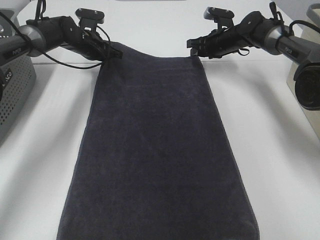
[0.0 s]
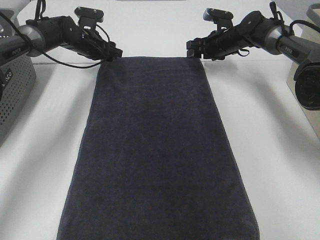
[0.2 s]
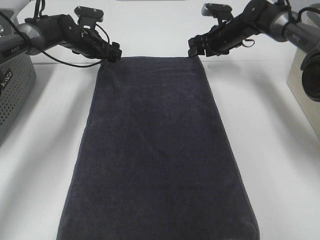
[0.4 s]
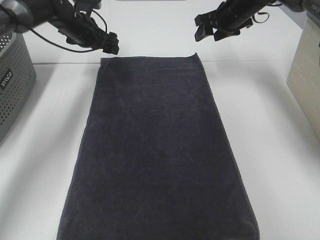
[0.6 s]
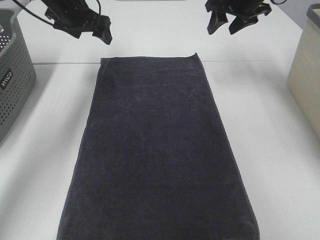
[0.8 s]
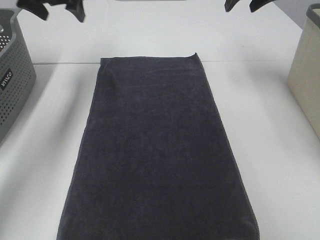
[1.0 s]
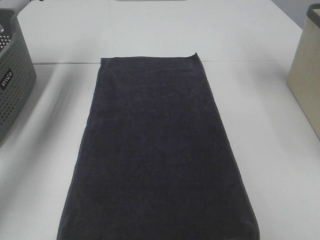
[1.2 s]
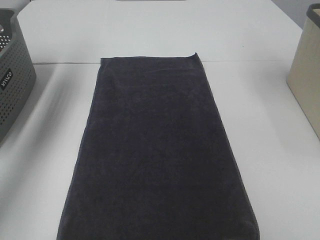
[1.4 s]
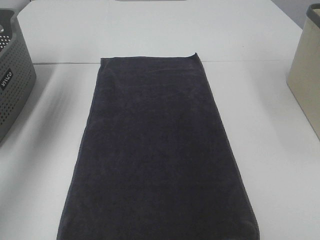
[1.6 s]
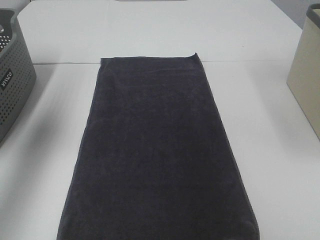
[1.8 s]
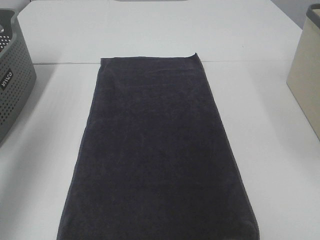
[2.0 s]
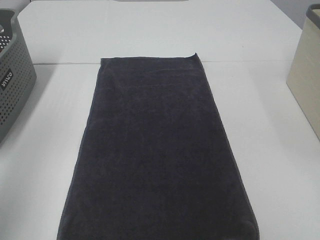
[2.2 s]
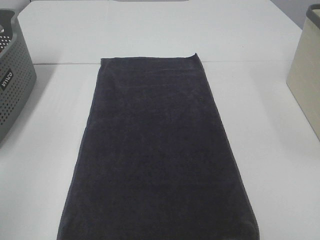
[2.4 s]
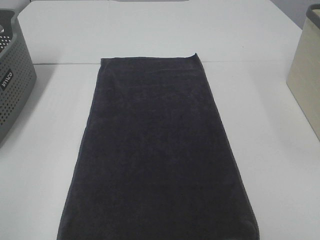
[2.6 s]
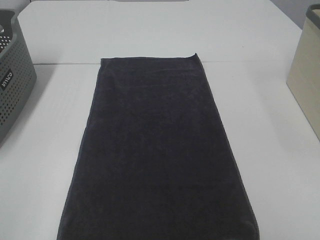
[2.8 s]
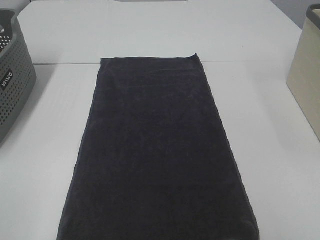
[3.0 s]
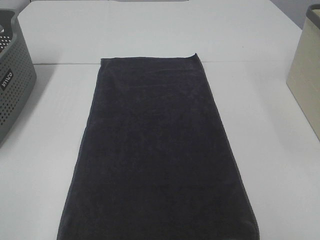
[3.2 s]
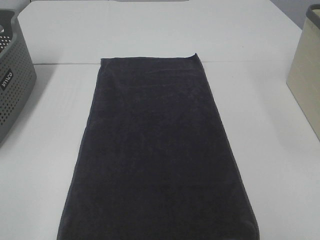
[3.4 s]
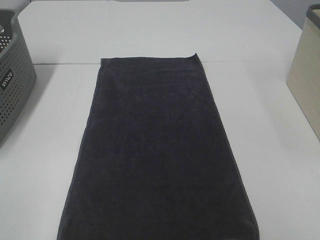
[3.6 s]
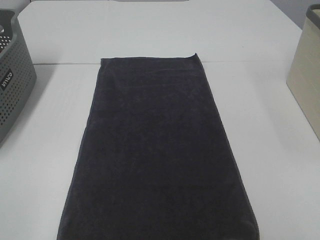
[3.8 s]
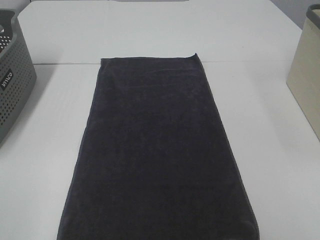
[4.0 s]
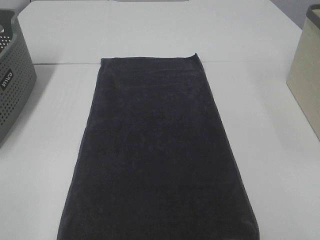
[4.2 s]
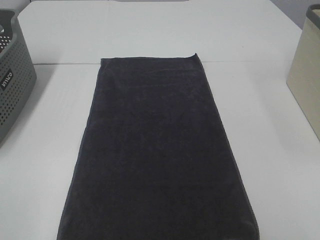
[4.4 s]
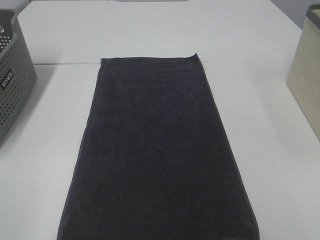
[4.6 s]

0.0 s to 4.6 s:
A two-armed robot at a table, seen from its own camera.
Task of the whole recording: Remove the towel and place it.
0.0 to 1.6 s: The left gripper moves upward, backward and to the left, some 35 cm, and opens up. Meanwhile the right gripper is displaced upward and backward by about 35 cm.
1.6 to 3.0 s: The left gripper is displaced backward by approximately 40 cm.

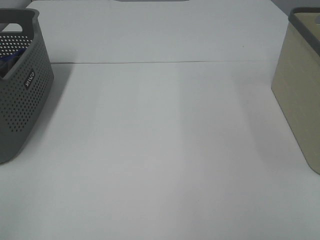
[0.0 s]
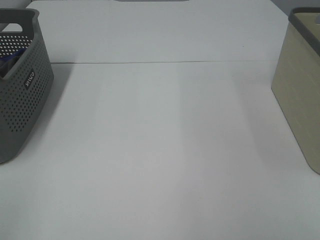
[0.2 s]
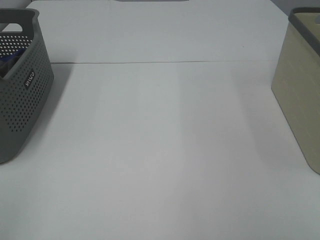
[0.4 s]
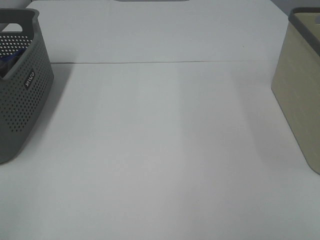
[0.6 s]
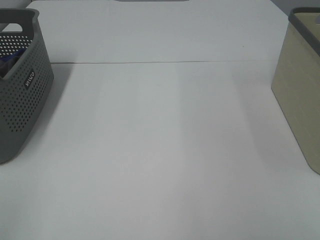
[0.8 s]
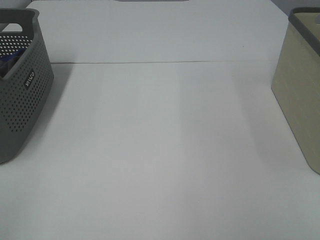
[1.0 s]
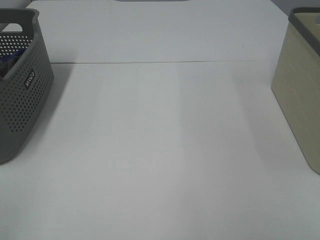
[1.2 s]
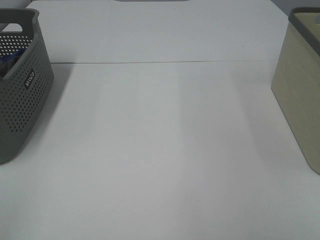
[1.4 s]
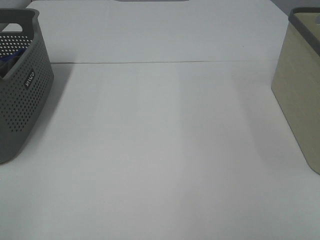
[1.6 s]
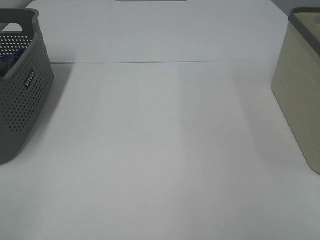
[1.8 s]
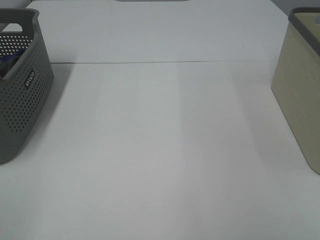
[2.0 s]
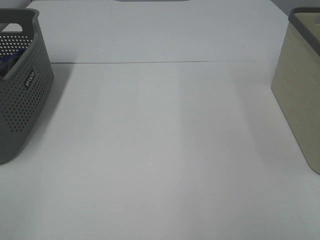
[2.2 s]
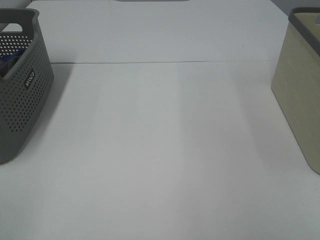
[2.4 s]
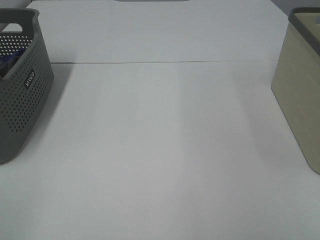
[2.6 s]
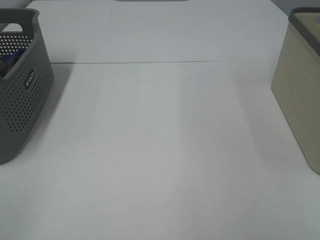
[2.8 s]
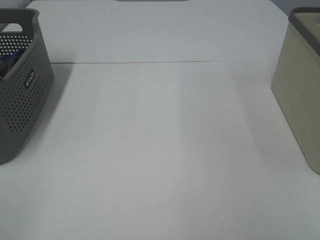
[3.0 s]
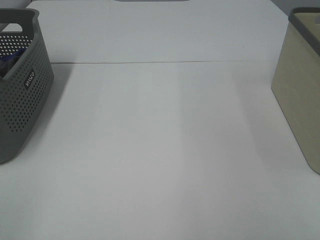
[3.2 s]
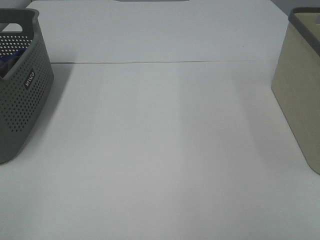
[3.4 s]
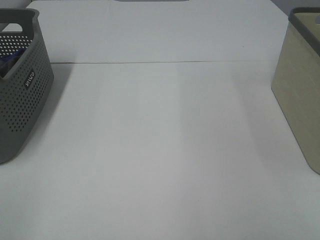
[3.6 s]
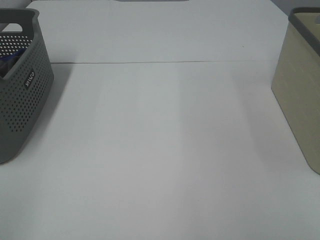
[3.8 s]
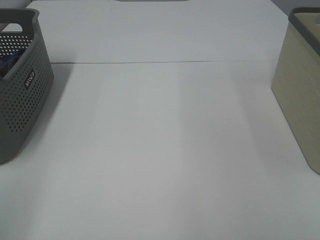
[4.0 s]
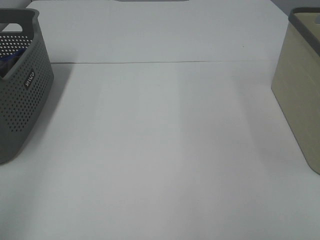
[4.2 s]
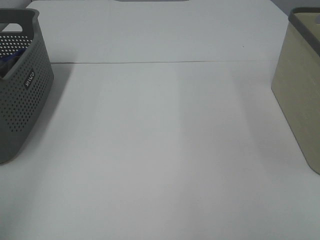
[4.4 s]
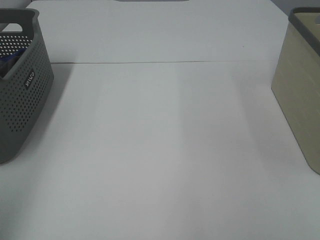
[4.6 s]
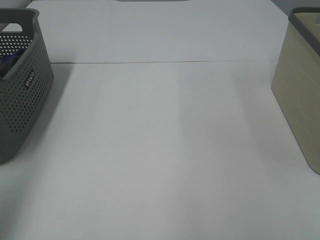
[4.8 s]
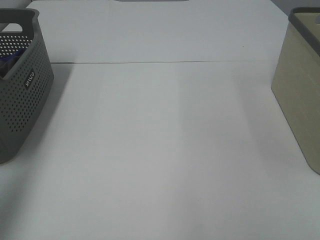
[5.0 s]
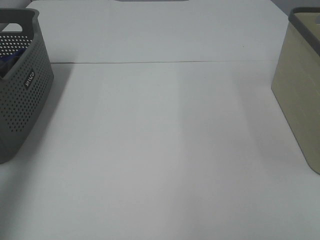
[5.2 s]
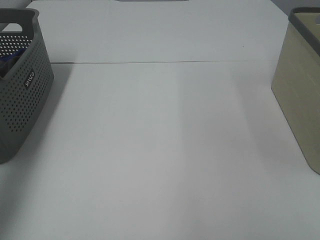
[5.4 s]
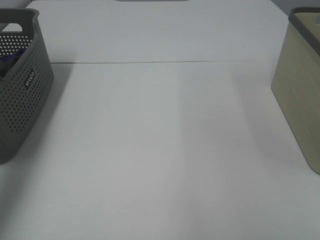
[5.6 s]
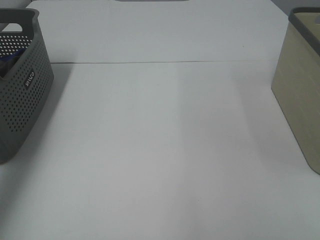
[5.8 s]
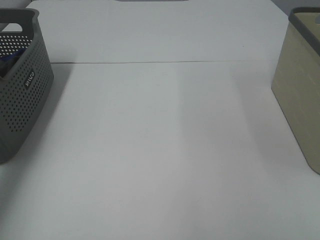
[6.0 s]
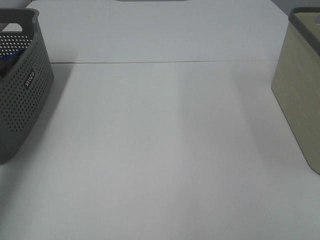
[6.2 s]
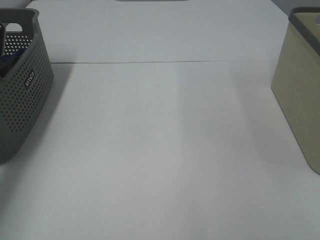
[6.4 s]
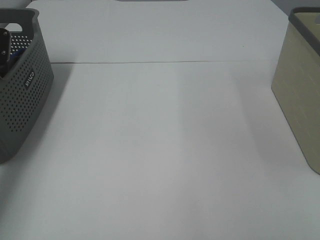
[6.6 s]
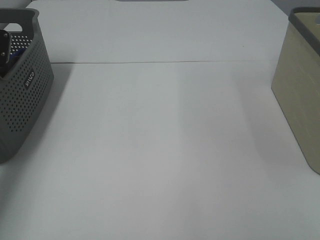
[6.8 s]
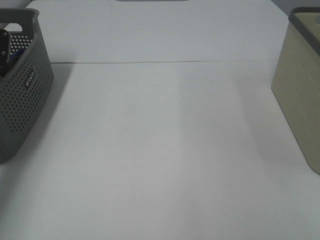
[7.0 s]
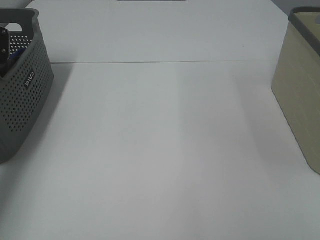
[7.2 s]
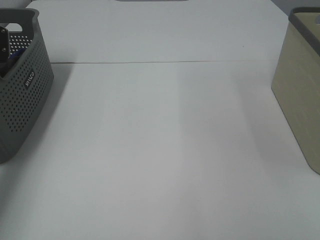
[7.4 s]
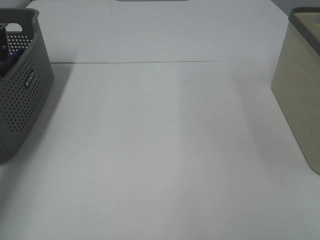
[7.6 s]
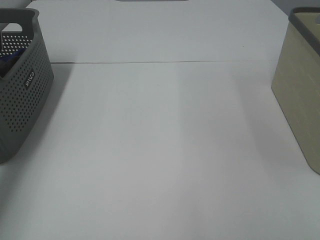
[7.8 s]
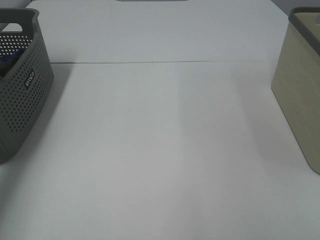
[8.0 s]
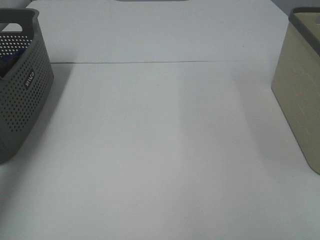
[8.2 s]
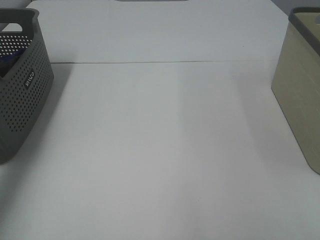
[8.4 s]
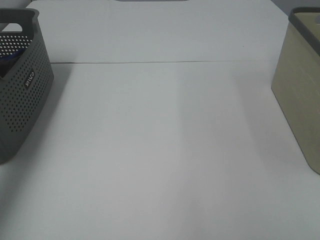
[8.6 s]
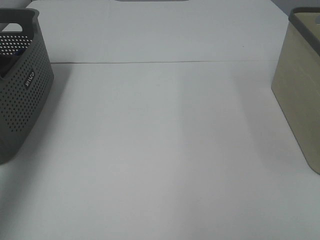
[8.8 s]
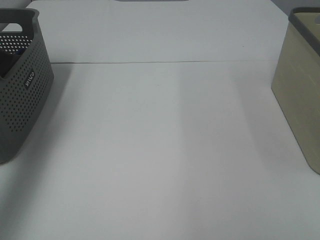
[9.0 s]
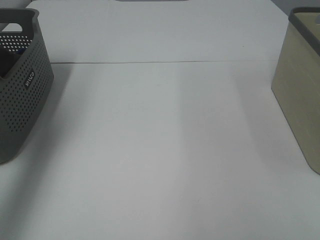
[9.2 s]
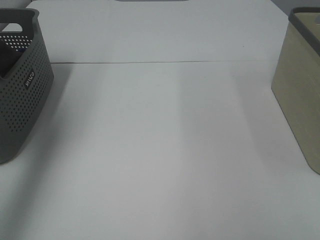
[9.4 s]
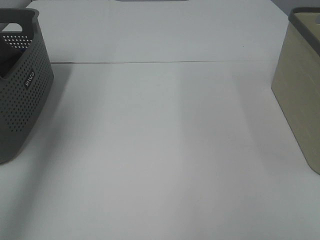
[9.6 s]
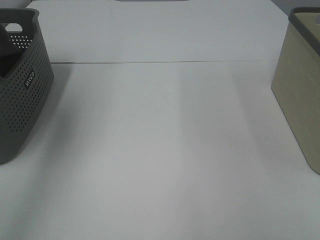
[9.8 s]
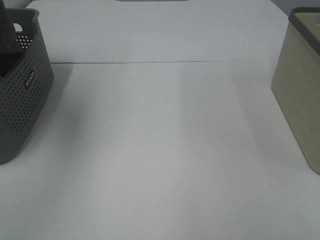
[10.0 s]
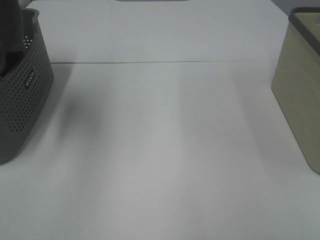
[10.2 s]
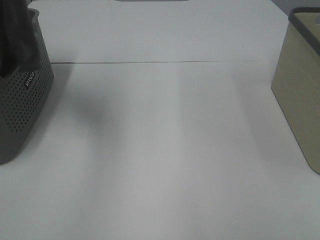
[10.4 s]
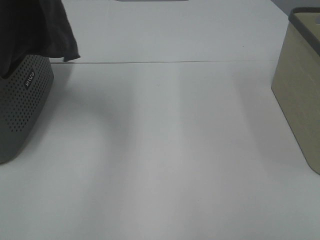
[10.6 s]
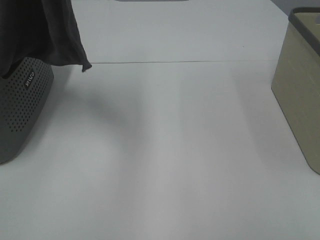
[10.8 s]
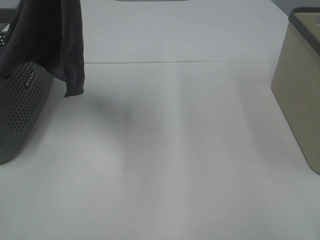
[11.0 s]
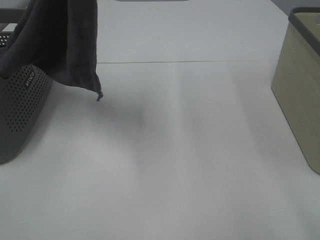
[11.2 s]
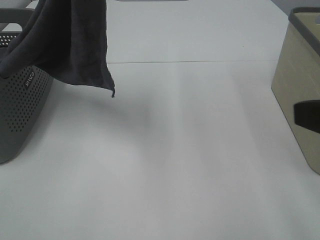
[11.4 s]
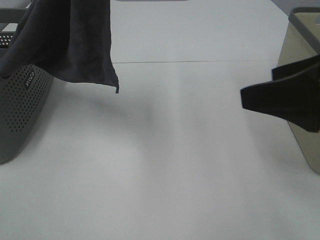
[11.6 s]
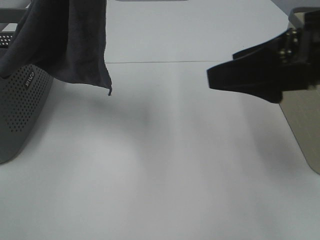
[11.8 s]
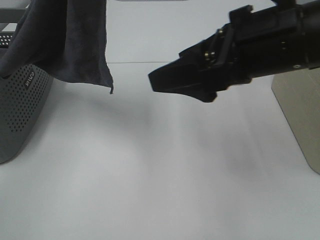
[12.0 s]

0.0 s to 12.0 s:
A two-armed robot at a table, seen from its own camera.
Task of the whole recording: Remove the towel and place it.
0.0 to 3.0 s: The two grippers keep their place.
4.4 to 6.0 s: The left gripper travels forward by approximately 30 cm.
7.6 to 9.0 s: The left gripper goes about 25 cm upward and backward.
9.0 to 10.4 s: The left gripper heads to the right, upward and backward, covering about 20 cm.
10.4 to 12.0 s: The left gripper moves to the right, approximately 10 cm. The right gripper travels forward and to the left by roughly 30 cm.

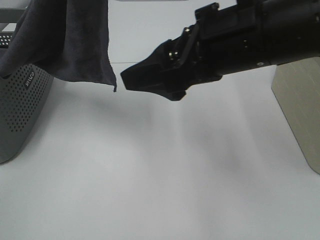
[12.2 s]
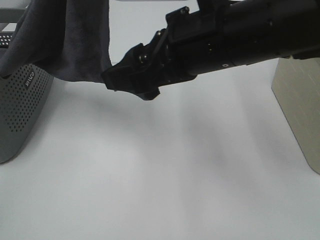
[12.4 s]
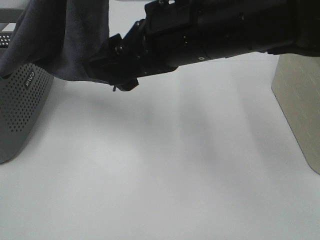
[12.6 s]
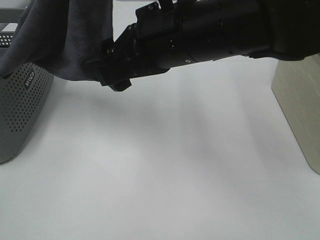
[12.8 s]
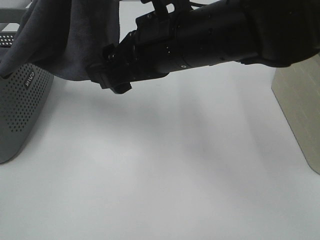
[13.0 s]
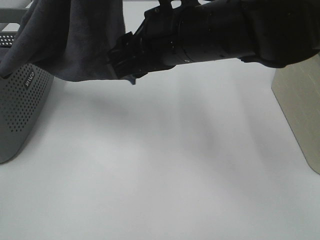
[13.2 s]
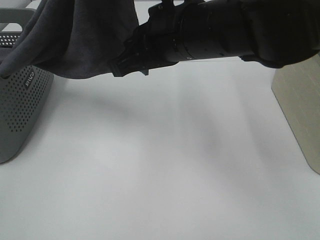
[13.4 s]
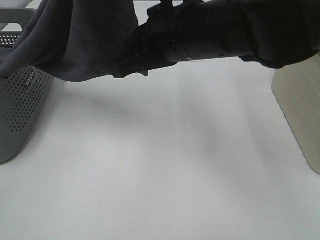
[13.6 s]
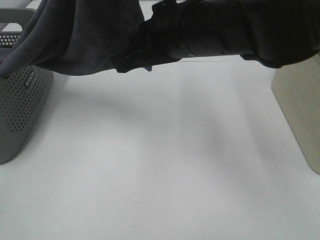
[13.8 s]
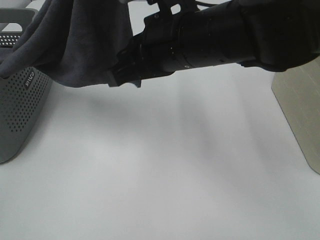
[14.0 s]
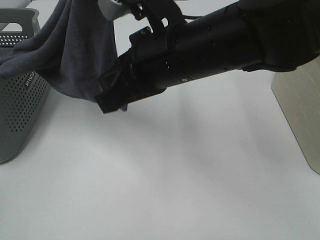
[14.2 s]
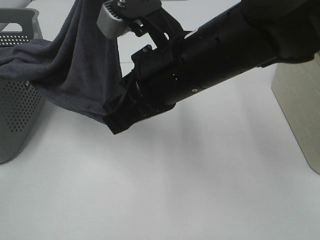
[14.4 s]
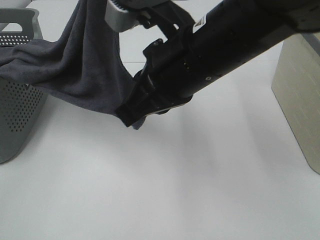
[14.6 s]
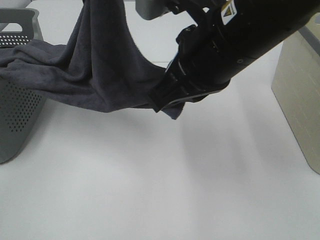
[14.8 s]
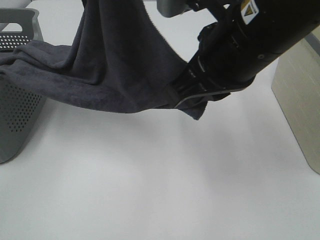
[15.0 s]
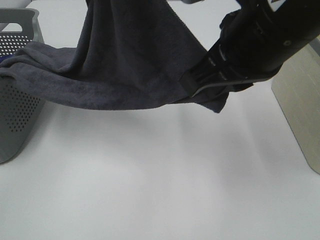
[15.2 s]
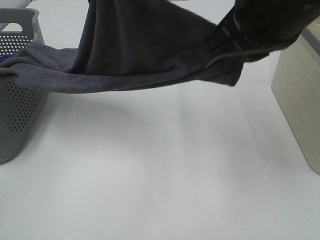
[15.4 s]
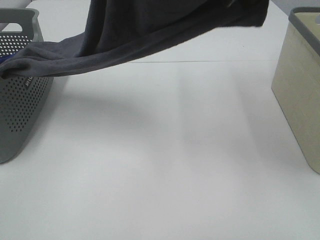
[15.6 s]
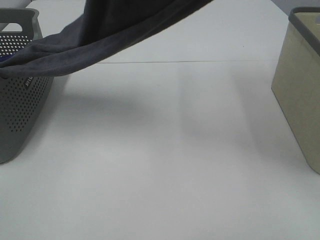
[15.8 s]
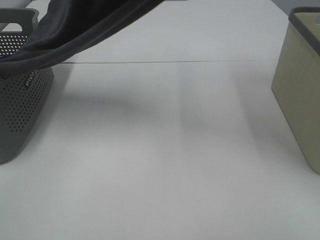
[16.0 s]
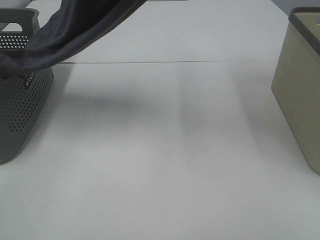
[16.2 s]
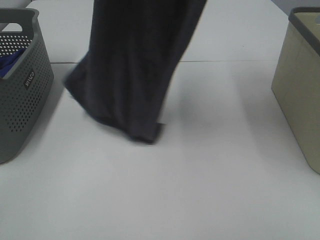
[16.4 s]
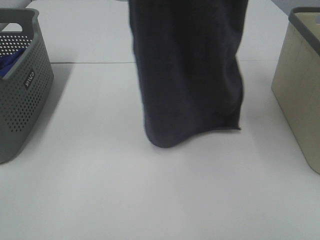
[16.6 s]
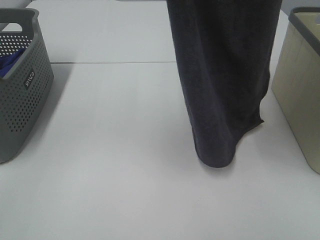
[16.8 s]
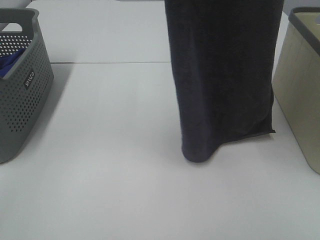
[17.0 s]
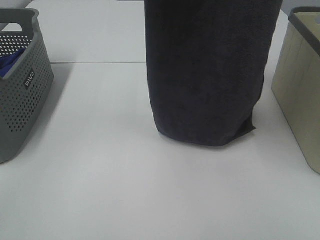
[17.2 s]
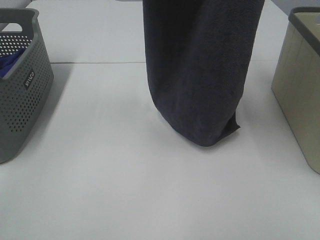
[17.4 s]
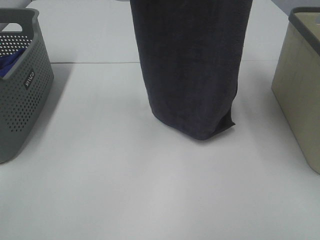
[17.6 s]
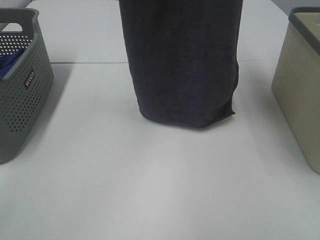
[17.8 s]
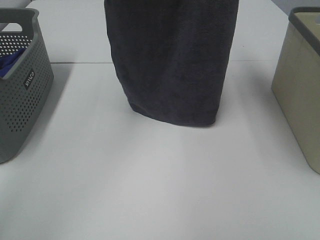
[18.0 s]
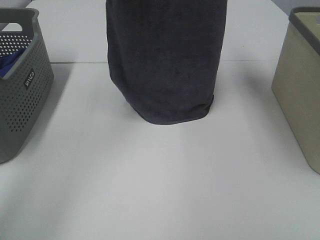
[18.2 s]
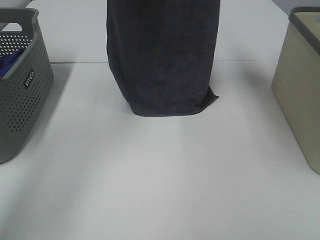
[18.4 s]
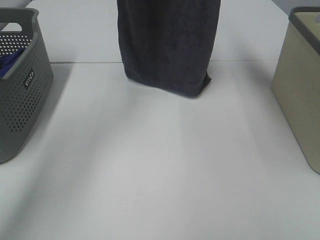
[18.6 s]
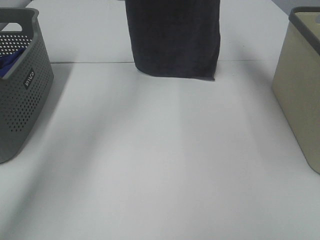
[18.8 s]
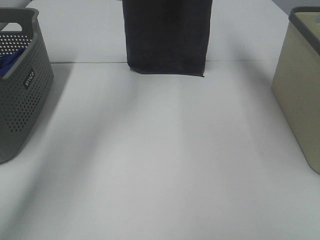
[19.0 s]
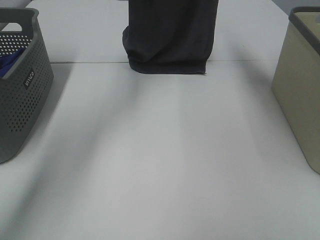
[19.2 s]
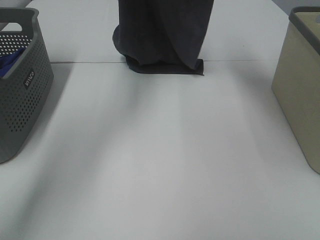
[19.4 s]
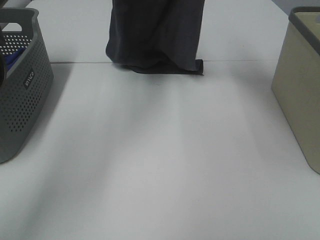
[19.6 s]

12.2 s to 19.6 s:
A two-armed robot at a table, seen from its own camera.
Task of the whole recording: Remove the towel and place it.
12.2 to 13.6 s: The right gripper ends up roughly 5 cm from where it was, and closes up.
13.6 to 15.2 s: The right gripper is displaced backward and to the right by about 10 cm.
15.2 to 16.6 s: The right gripper shifts about 20 cm upward. Meanwhile the left gripper shifts some 5 cm upward.
16.6 to 18.2 s: The grippers both shift forward by roughly 15 cm.
18.2 to 19.6 s: The left gripper is displaced forward and downward by about 10 cm, while the right gripper travels forward by some 5 cm.
